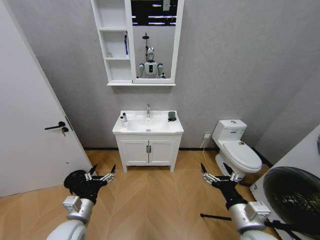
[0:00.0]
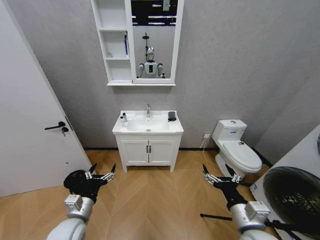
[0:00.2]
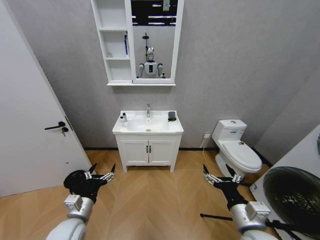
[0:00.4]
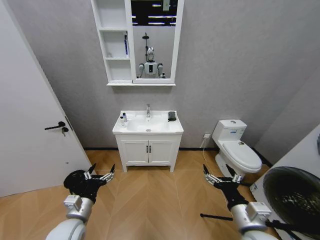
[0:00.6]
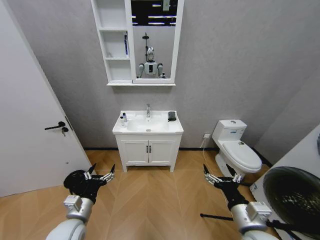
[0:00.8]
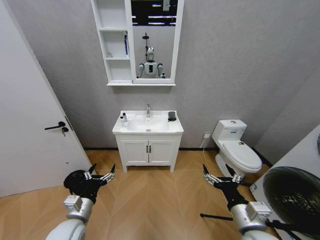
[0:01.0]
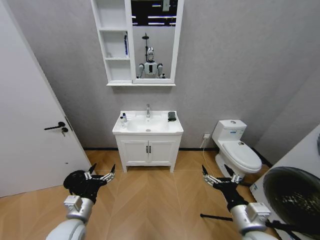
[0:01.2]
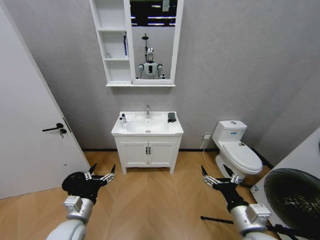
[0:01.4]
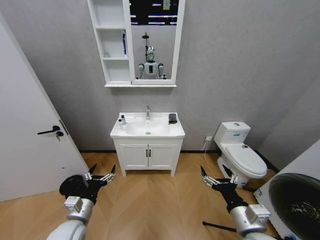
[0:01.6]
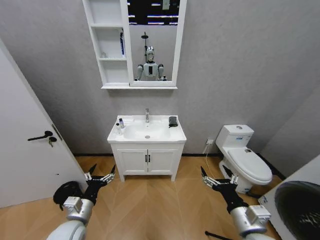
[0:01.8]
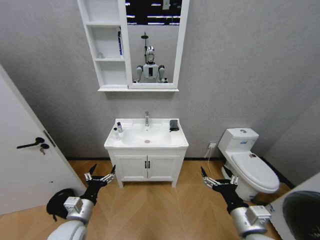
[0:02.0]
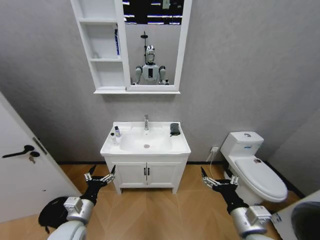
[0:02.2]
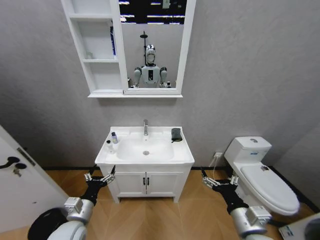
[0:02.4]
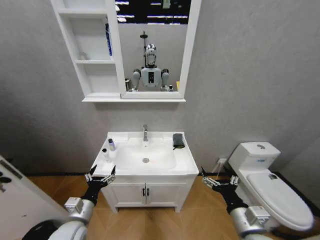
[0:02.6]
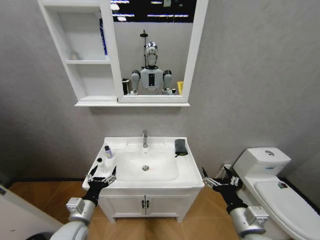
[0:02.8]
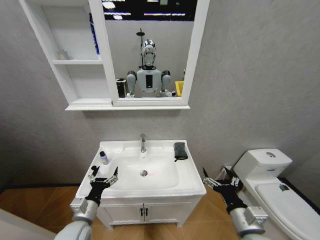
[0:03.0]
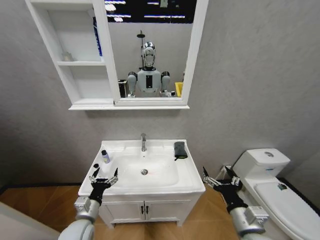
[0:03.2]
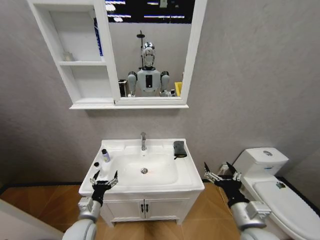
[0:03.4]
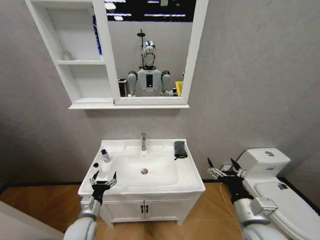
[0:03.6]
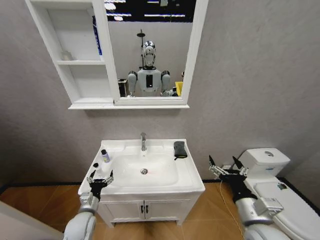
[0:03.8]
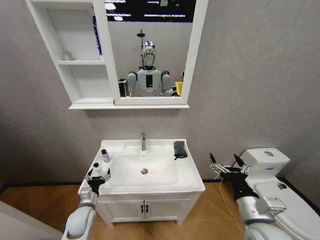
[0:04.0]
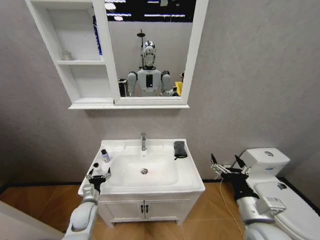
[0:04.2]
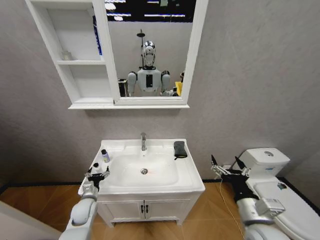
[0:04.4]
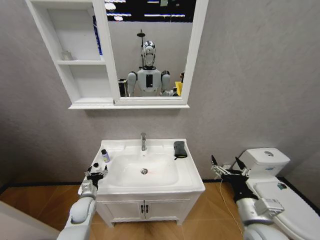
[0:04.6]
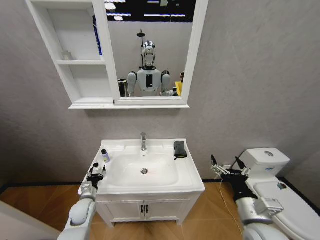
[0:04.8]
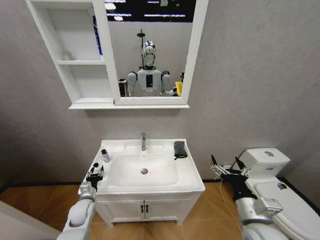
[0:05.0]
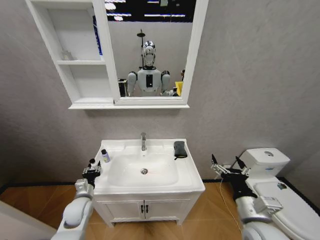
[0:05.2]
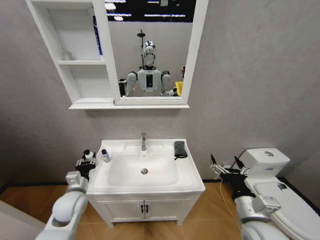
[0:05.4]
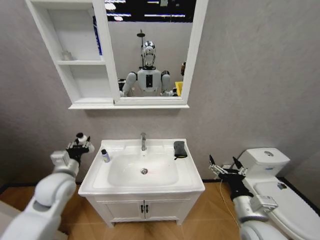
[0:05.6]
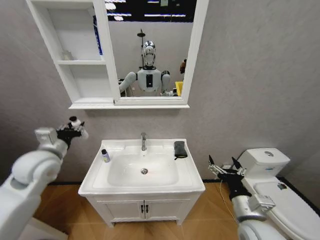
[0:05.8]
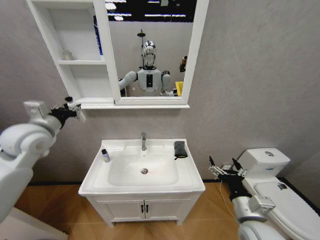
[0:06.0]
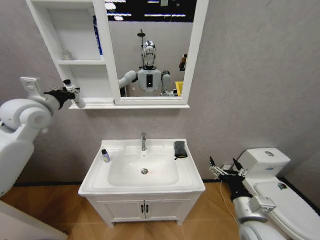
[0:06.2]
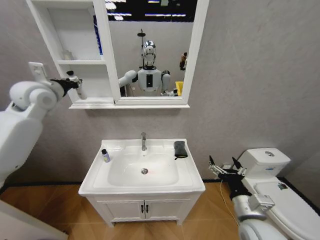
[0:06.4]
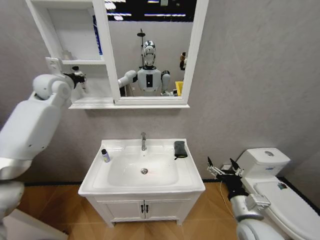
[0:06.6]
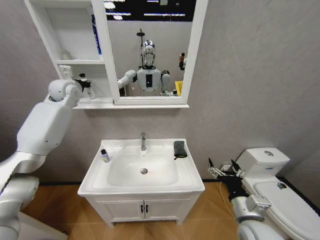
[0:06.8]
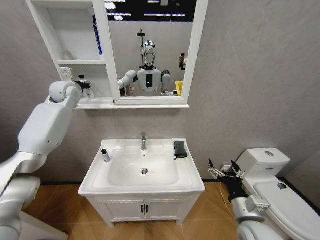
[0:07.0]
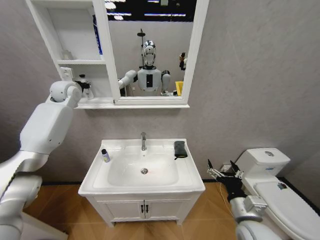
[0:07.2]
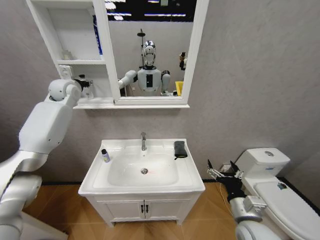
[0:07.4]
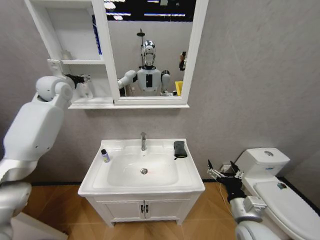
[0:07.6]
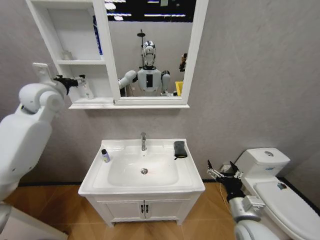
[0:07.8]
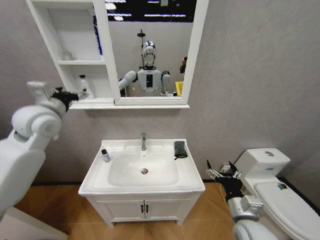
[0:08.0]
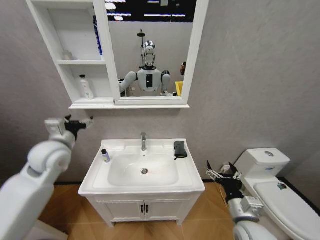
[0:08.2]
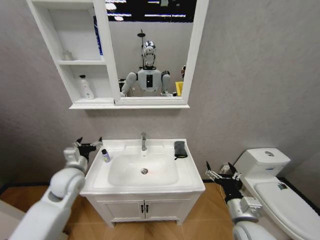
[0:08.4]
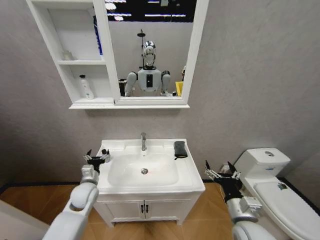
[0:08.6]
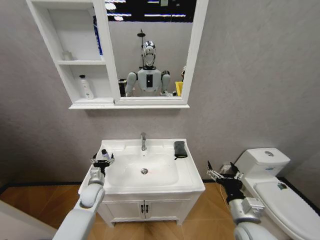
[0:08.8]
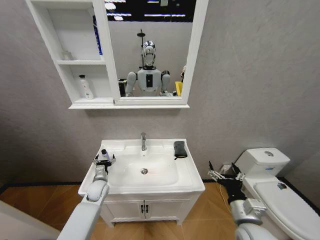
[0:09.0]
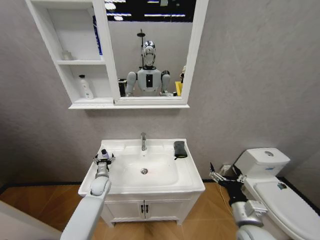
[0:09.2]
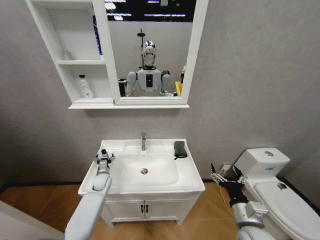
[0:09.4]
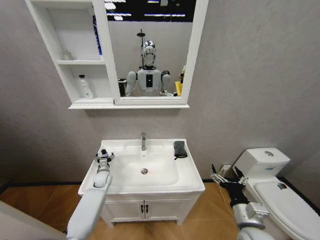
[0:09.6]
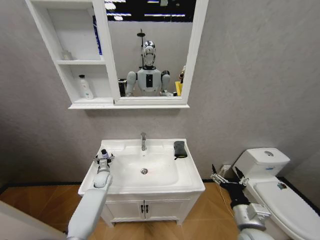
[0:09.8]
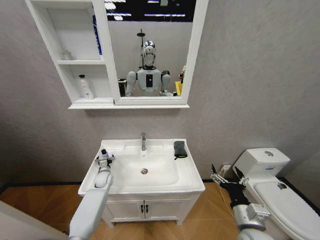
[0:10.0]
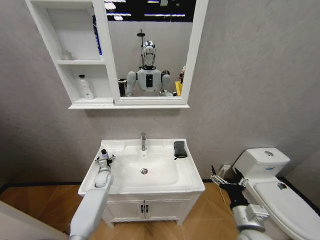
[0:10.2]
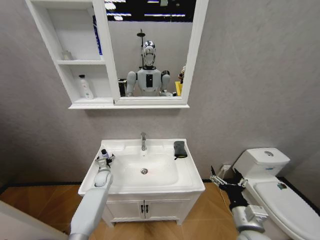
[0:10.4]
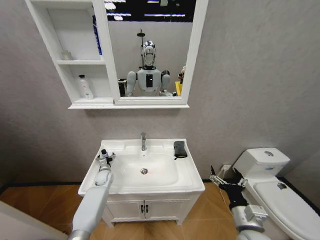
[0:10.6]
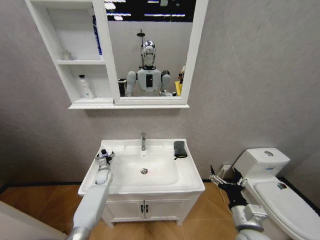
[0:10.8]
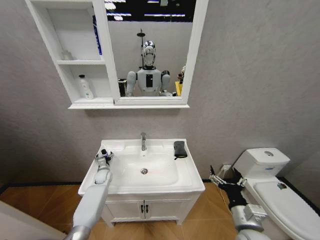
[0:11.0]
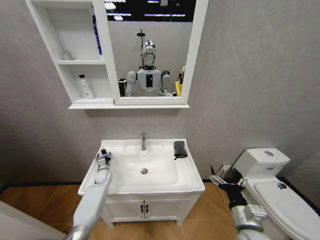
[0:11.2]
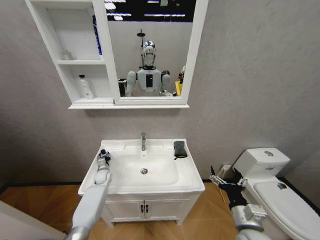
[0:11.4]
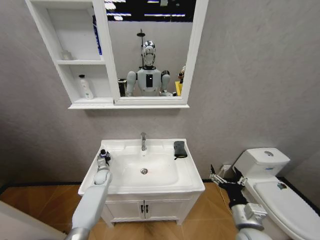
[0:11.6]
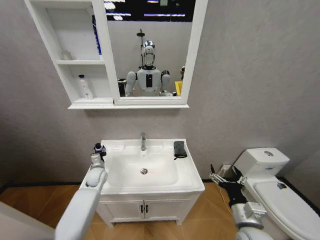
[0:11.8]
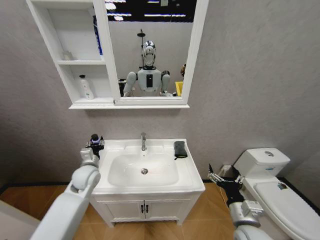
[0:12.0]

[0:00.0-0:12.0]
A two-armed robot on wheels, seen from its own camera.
Task of the whole recording: Move facial cleanser and shampoo from washbasin to cabinet, then wipe washbasin with towel.
0:03.0 to 0:04.4: The left gripper moves forward and downward, some 15 cm.
0:04.4 to 0:06.0: The left gripper is displaced upward by roughly 40 cm, and closes.
0:06.0 to 0:07.6: The left gripper moves forward and upward, approximately 20 cm, and opens up.
0:07.6 to 0:09.0: The left gripper goes approximately 50 cm downward.
0:09.0 to 0:10.4: The left gripper shifts about 10 cm forward.
0:10.4 to 0:12.0: The left gripper is displaced upward and backward by some 20 cm, and closes.

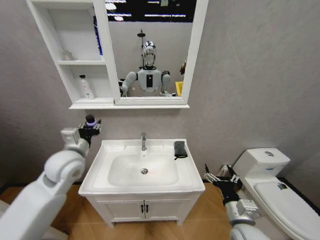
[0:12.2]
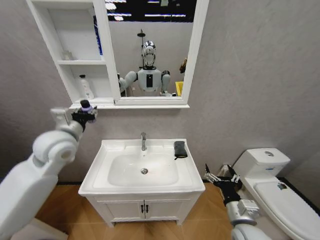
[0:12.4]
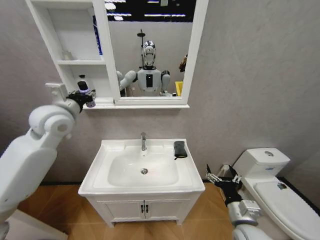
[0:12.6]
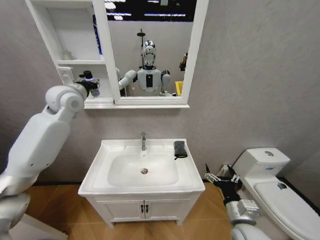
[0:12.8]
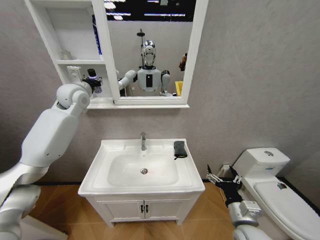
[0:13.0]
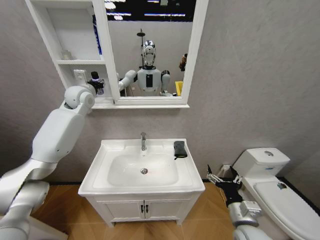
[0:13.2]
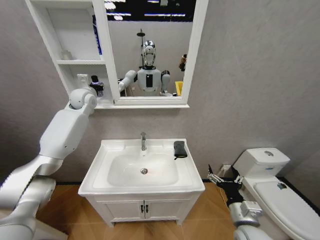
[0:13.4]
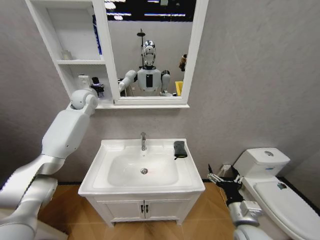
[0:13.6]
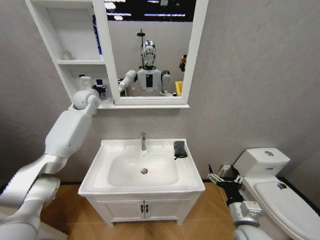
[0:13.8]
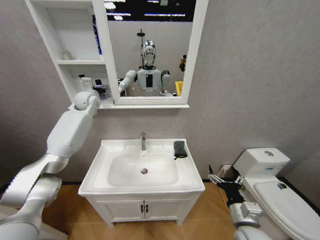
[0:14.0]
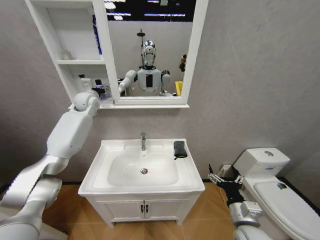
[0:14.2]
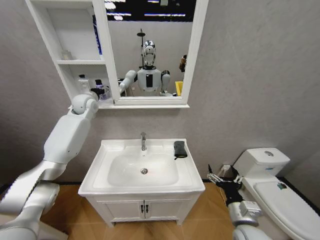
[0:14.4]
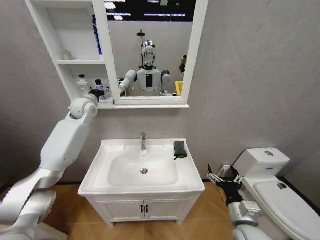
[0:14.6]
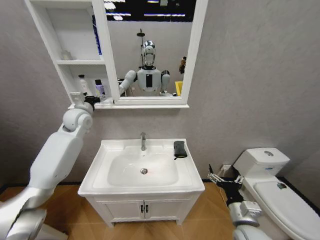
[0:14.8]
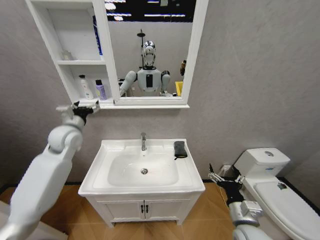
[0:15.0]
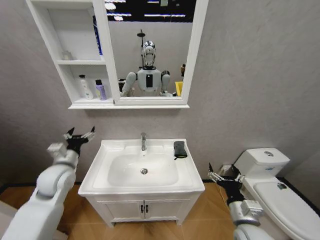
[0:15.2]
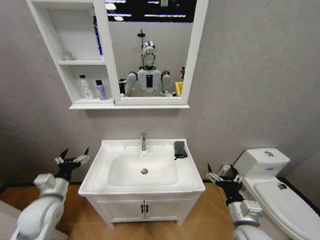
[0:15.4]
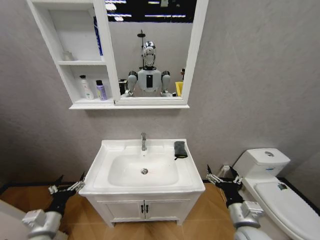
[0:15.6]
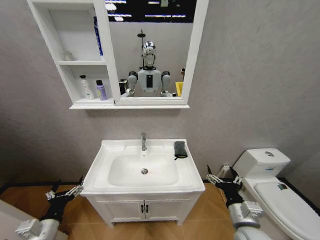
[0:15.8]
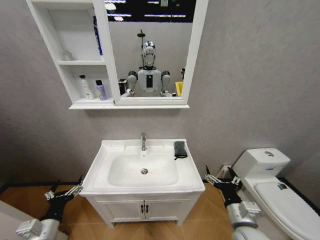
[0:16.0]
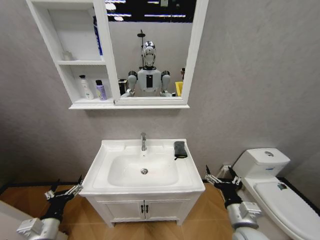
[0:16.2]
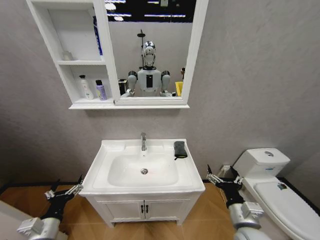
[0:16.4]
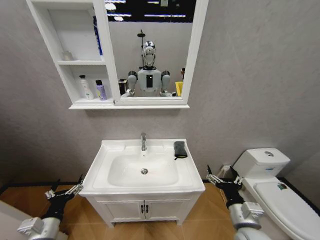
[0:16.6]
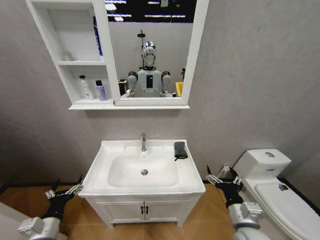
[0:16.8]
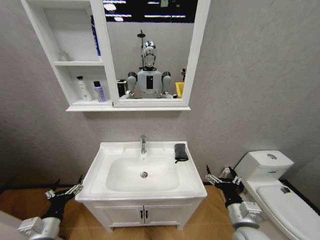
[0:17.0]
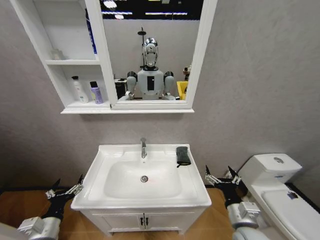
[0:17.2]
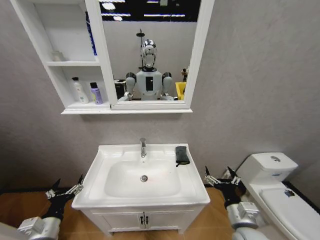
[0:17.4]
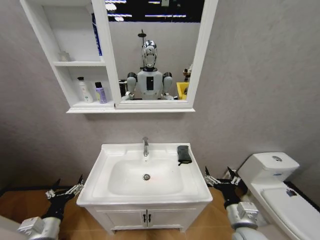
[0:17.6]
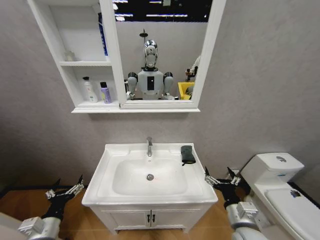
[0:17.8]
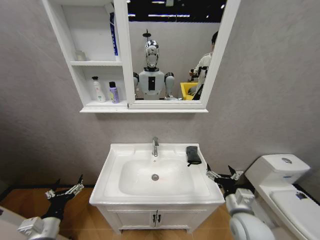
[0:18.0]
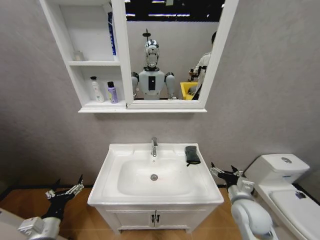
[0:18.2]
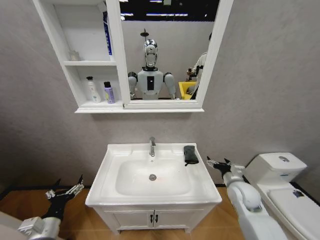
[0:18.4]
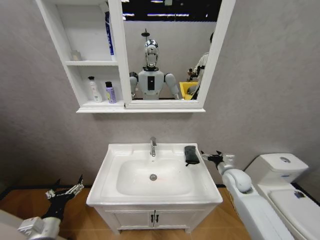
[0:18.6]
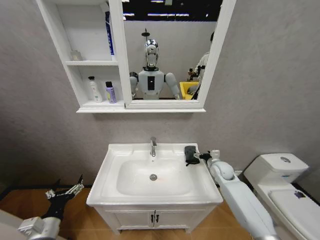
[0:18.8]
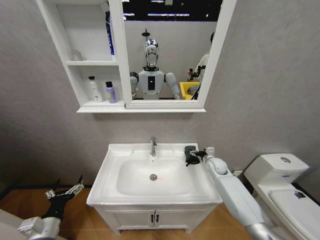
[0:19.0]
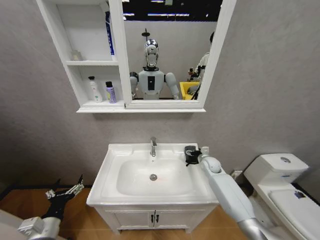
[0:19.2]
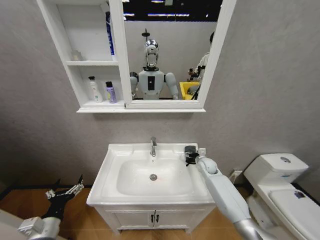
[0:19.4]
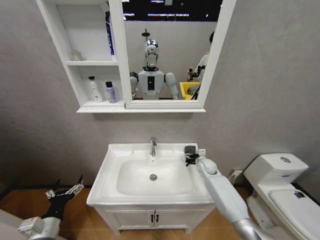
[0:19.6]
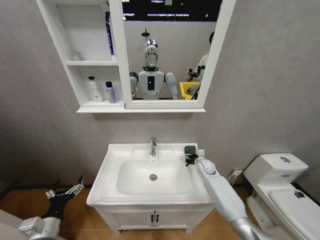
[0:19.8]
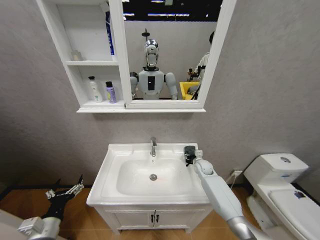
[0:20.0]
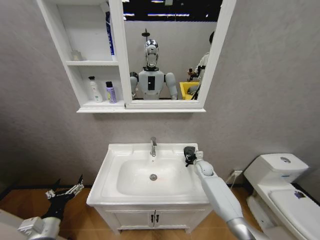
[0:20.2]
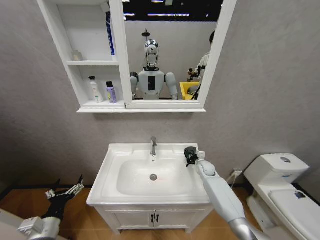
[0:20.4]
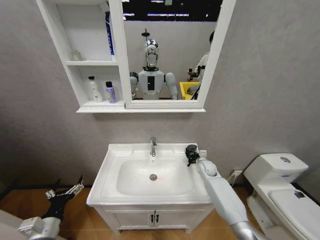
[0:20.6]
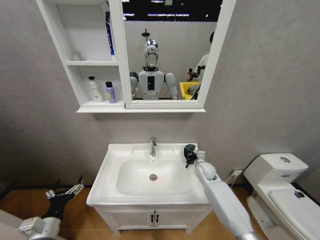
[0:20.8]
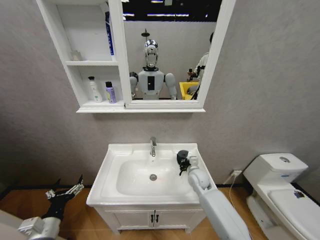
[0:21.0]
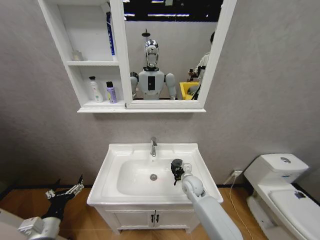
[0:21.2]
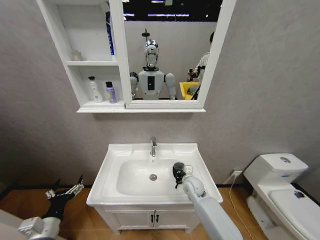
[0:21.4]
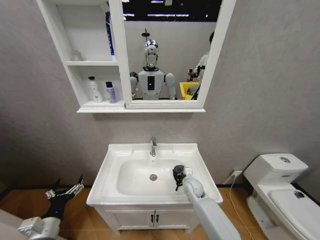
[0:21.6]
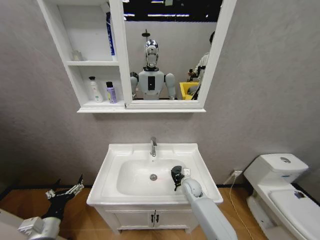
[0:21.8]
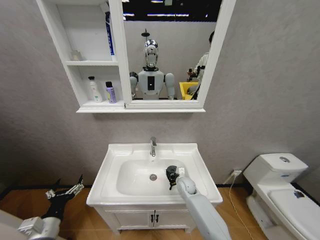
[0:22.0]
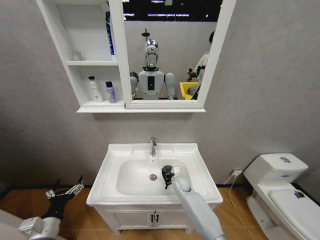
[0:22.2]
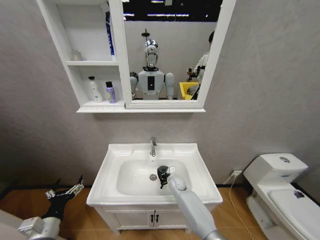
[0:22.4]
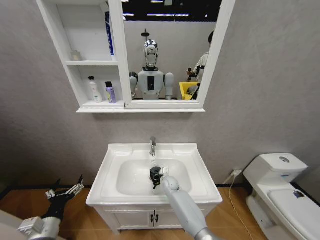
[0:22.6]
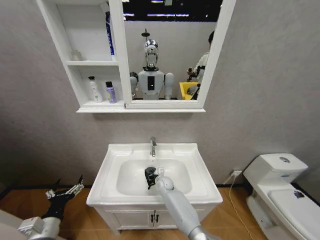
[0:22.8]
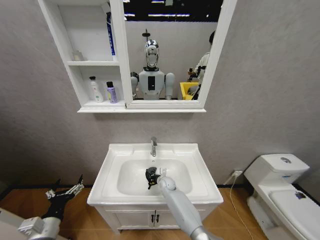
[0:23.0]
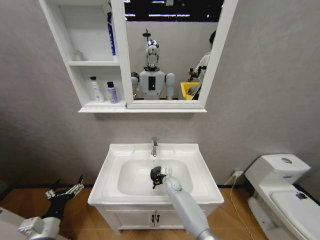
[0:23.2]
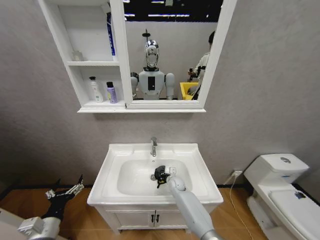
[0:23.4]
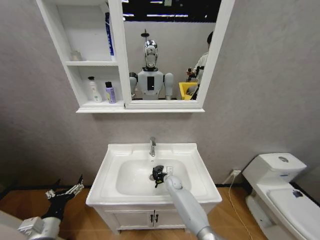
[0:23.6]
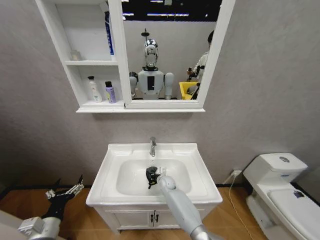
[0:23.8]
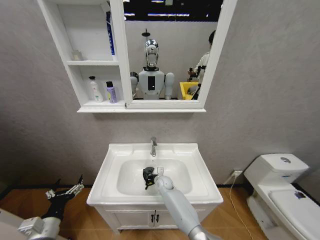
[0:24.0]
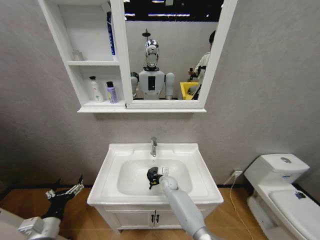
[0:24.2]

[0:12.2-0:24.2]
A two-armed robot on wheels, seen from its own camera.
Task of the whole recording: Move facial cleanser and shampoo from washbasin to cabinet, then wipe washbasin with towel.
0:12.2 to 0:13.8: The left gripper shifts about 30 cm forward and upward.
0:13.8 to 0:15.2: The left gripper is displaced backward and downward by about 30 cm, and opens.
0:15.2 to 0:16.6: The left gripper is displaced backward and downward by roughly 25 cm.
0:16.6 to 0:18.2: The right gripper moves forward, some 10 cm.
0:18.2 to 0:19.8: The right gripper heads forward, covering roughly 25 cm.
0:19.8 to 0:21.2: The right gripper is displaced to the left and backward by about 15 cm, and closes.
0:21.2 to 0:22.6: The right gripper is displaced downward, to the left and forward by about 15 cm.
0:22.6 to 0:24.2: The grippers make only small movements.
